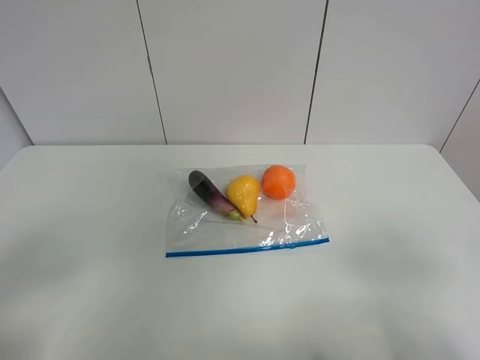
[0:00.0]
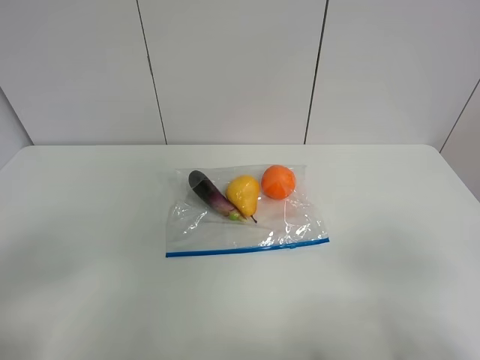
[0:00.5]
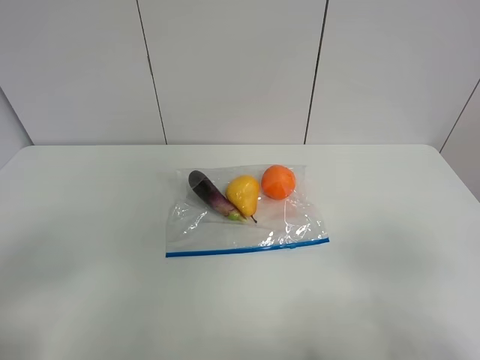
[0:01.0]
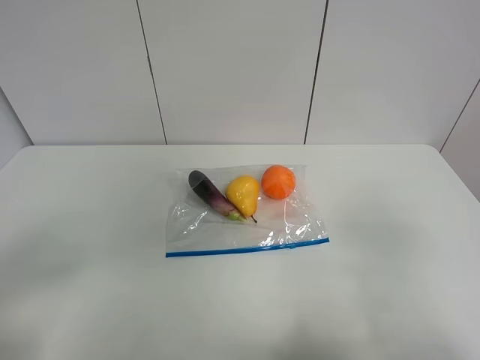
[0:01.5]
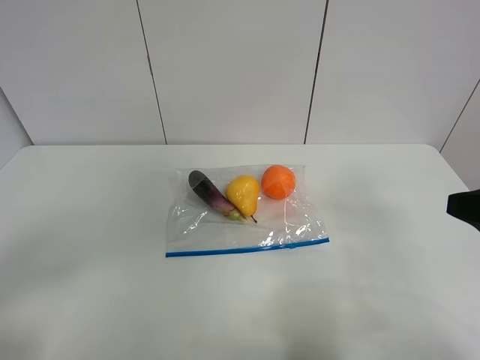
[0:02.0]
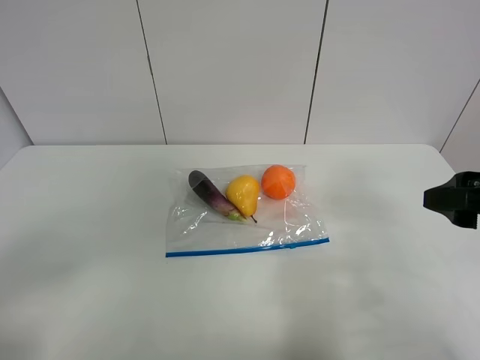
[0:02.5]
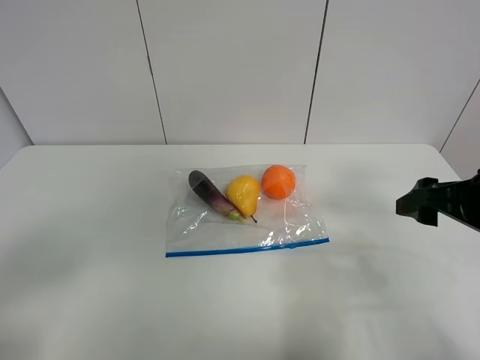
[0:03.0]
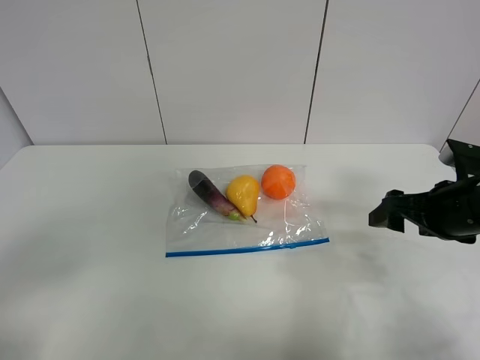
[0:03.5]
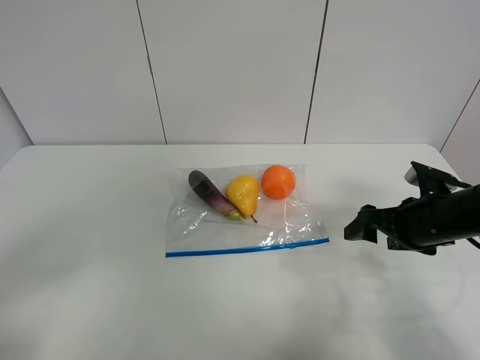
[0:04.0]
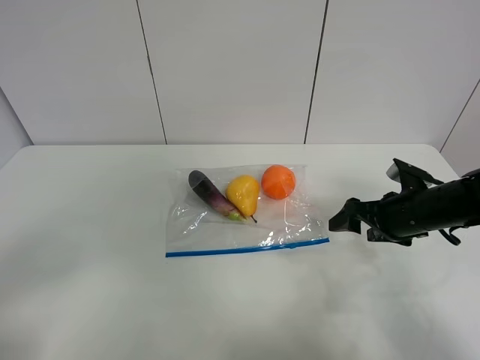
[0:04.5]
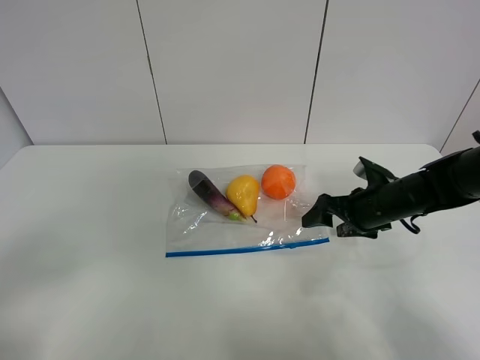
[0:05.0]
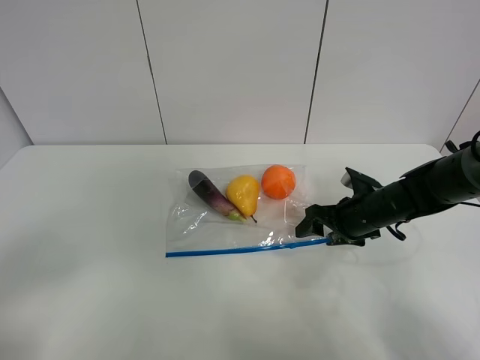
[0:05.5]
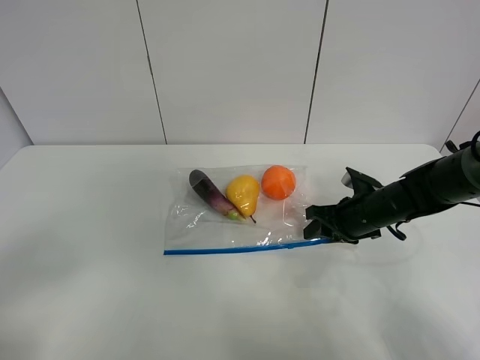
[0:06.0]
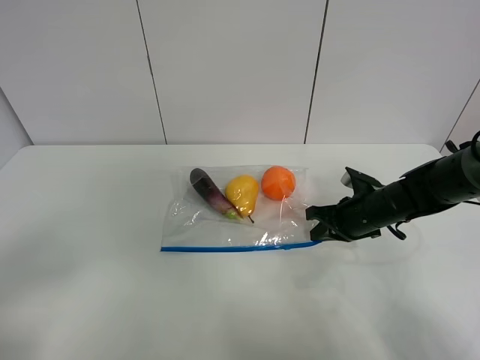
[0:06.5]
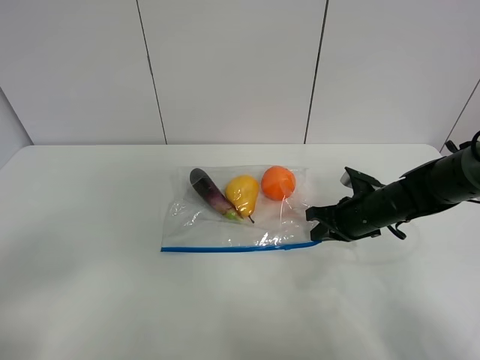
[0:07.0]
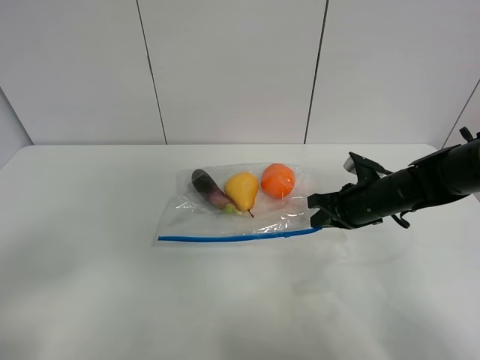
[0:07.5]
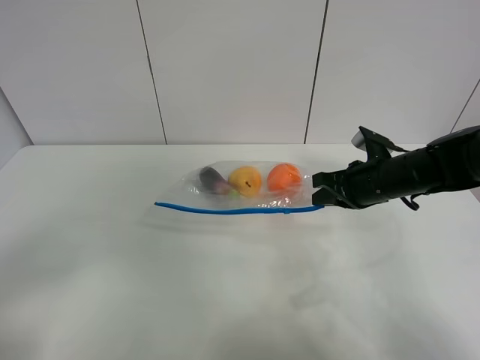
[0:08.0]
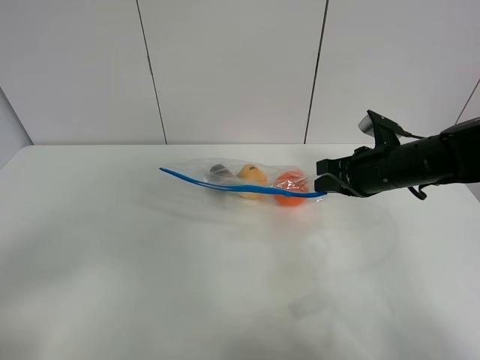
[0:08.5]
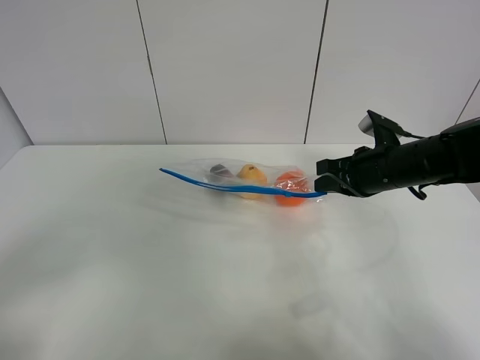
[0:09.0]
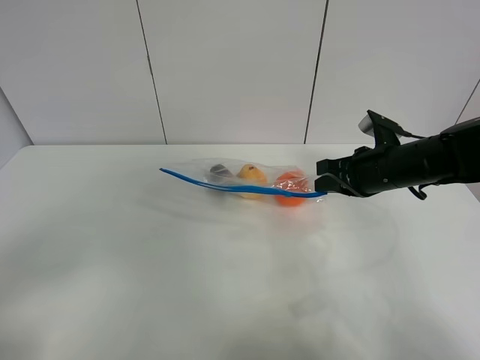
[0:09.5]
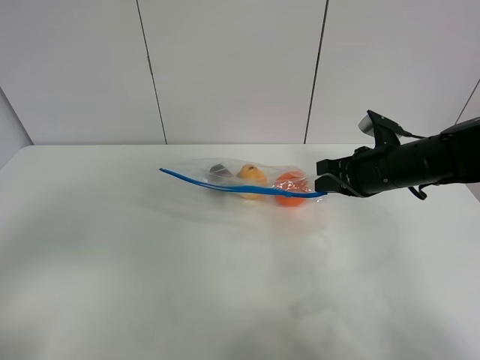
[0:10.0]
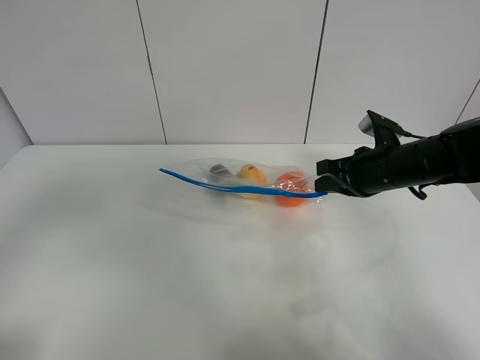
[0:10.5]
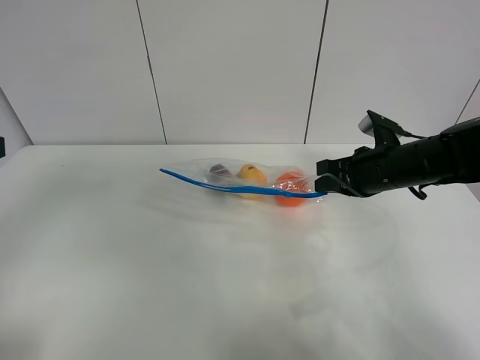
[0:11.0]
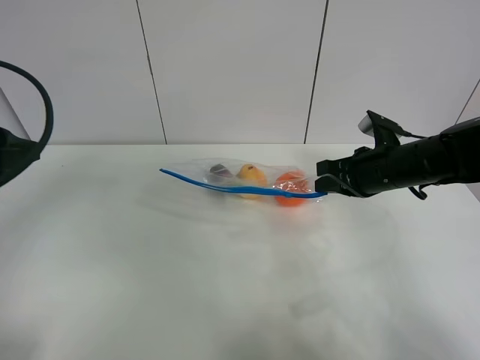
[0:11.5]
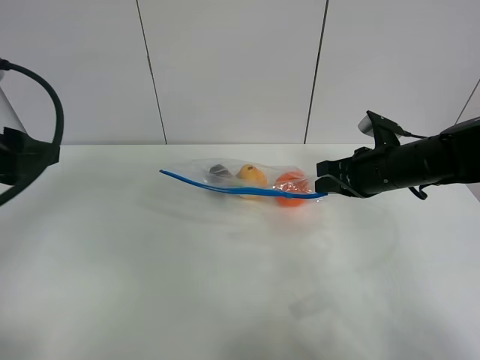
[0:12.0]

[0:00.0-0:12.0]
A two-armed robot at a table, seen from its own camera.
Step, 0.0 to 6.5 s: Grasp the fruit bag with right gripper.
Step, 7.0 to 8.5 s: Lift the fruit bag with your right gripper.
0.0 to 2.0 s: The right gripper heads forward, covering about 10 cm.
2.0 to 4.0 s: The right gripper goes some 20 cm downward and forward.
4.0 to 6.0 s: The right gripper goes approximately 10 cm forward, downward and to the left, and closes its fingers.
6.0 to 8.0 s: The right gripper travels upward by some 5 cm, and closes.
8.0 to 10.0 s: There are only small adjustments of the grippers.
10.0 to 12.0 s: The left gripper goes some 15 cm forward.

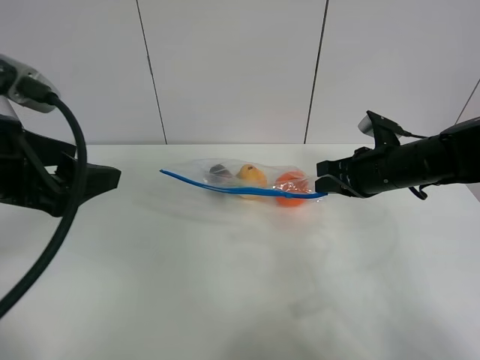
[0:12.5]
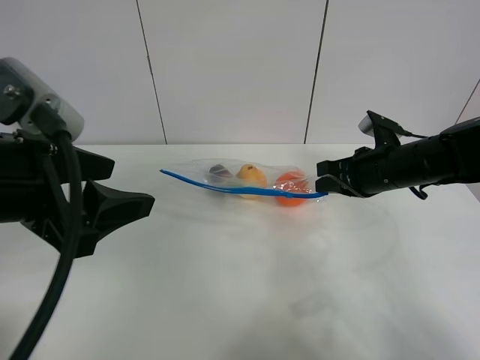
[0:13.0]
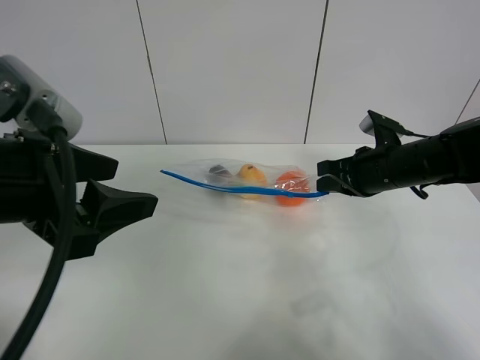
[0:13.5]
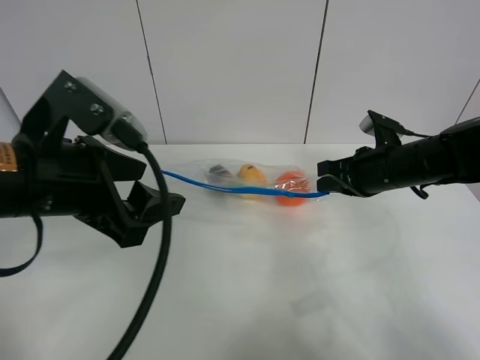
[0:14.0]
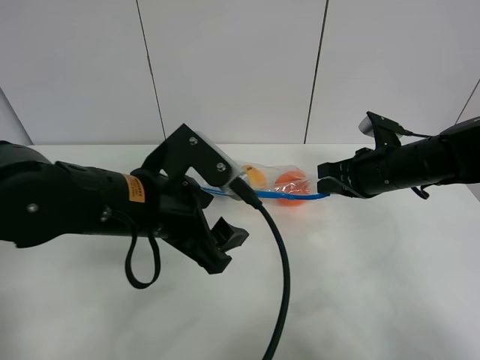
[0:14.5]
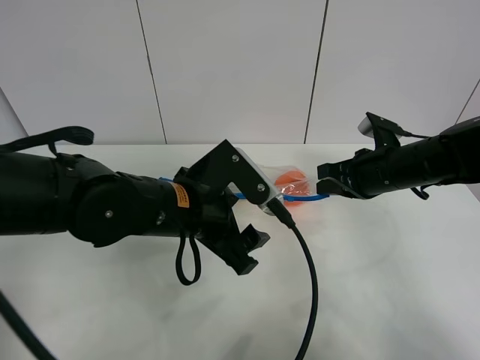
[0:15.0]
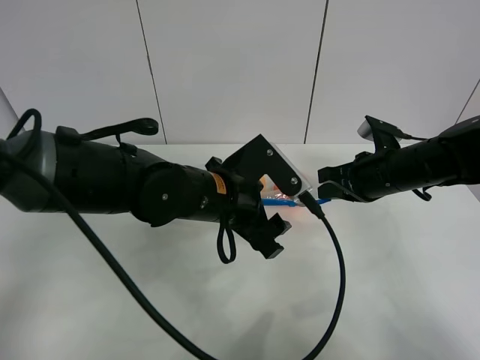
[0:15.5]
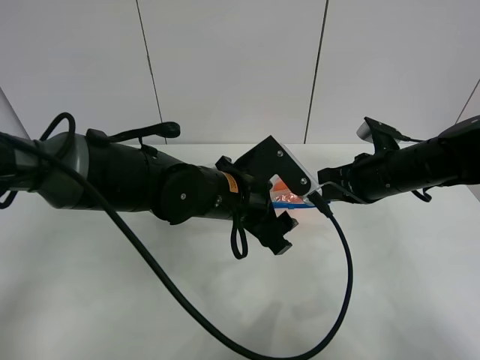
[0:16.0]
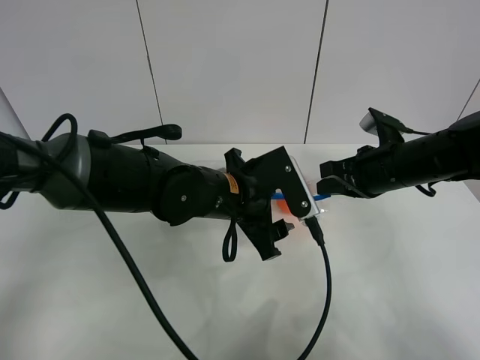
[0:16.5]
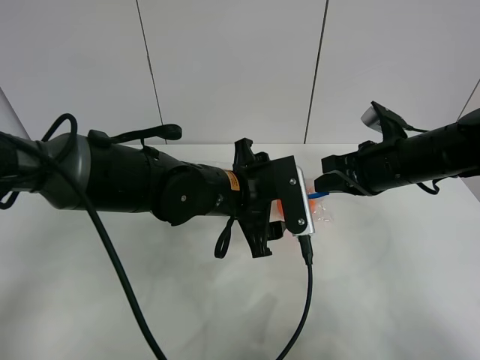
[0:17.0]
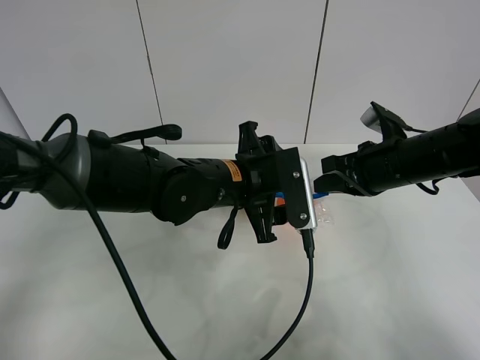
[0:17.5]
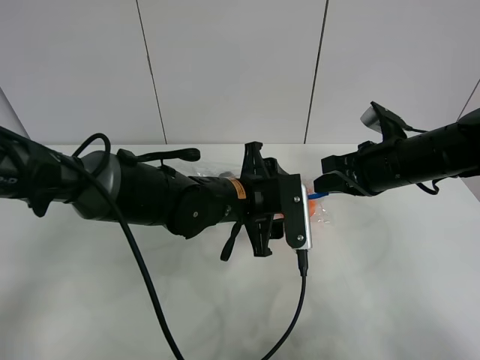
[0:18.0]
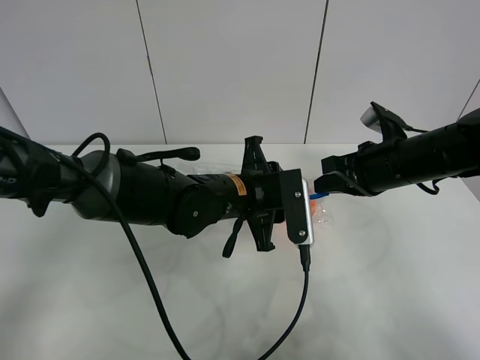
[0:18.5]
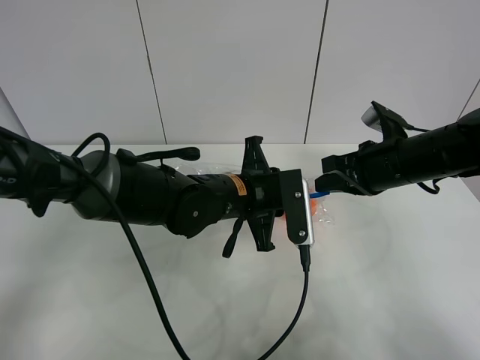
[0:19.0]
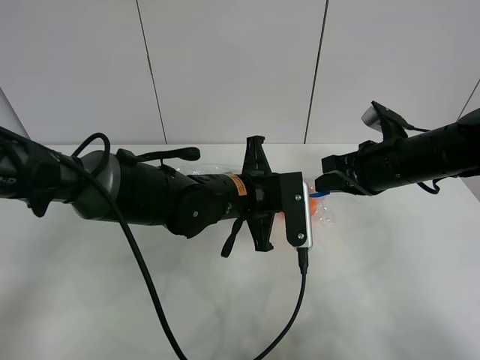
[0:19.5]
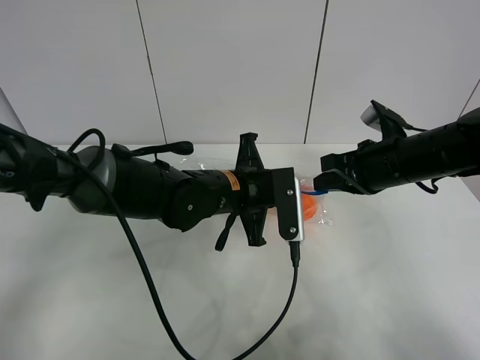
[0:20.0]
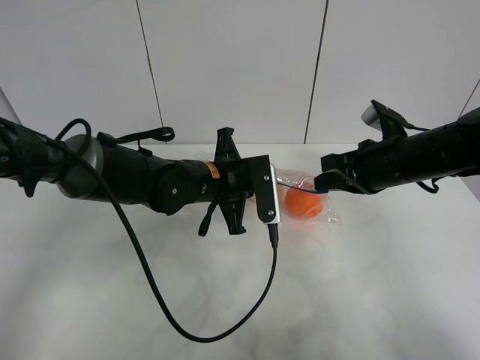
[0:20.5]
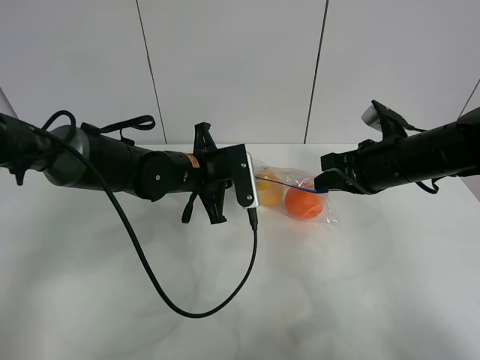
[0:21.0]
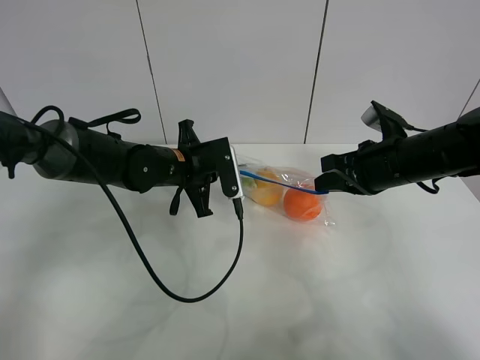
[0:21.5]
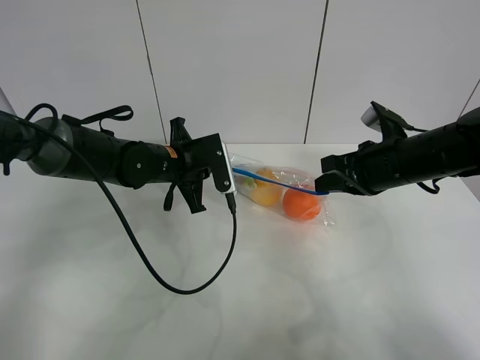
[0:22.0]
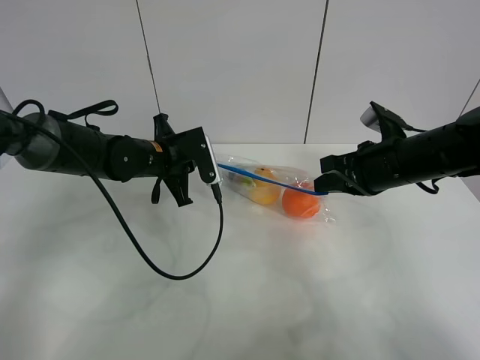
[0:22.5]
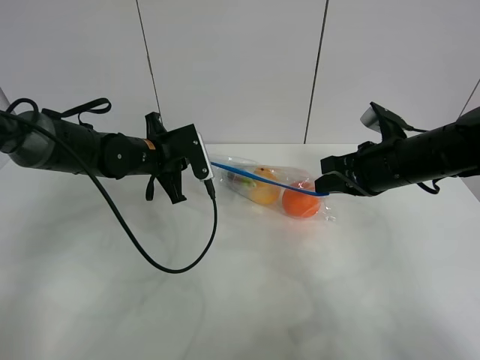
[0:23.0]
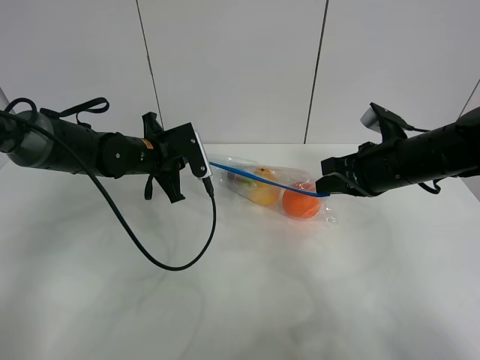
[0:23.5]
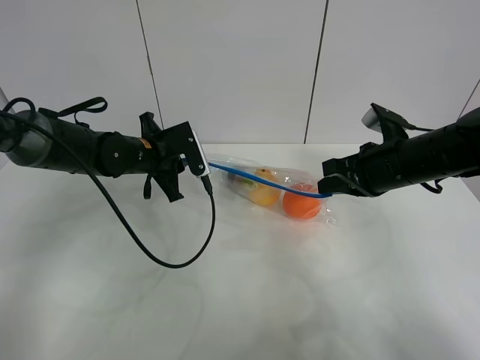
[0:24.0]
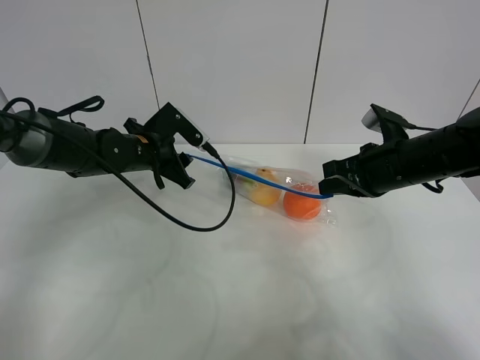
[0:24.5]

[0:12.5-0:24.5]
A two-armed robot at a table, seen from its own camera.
12.5 to 14.5 s: The left gripper shifts approximately 15 cm to the right and downward.
14.5 to 16.5 s: The left gripper heads to the right, forward and downward, covering about 10 cm.
16.5 to 18.5 s: The left gripper closes up.
18.5 to 20.5 s: The left gripper ends up roughly 5 cm from where it was, and closes.
20.5 to 22.5 s: The left gripper travels to the left and forward by roughly 10 cm.
22.5 to 24.5 s: The left gripper opens its fingers.

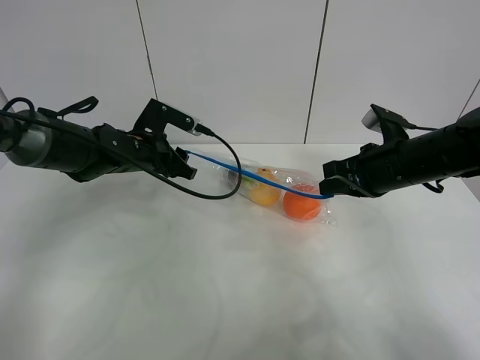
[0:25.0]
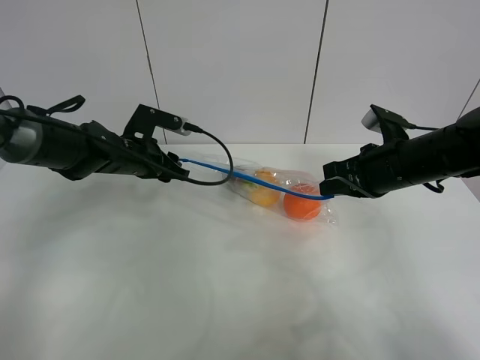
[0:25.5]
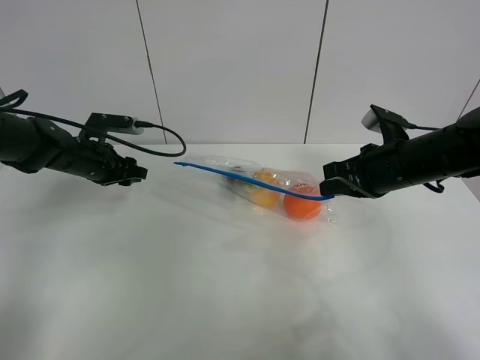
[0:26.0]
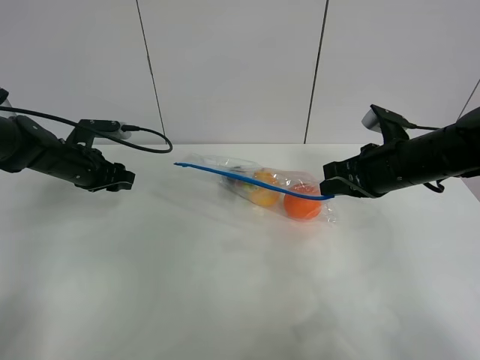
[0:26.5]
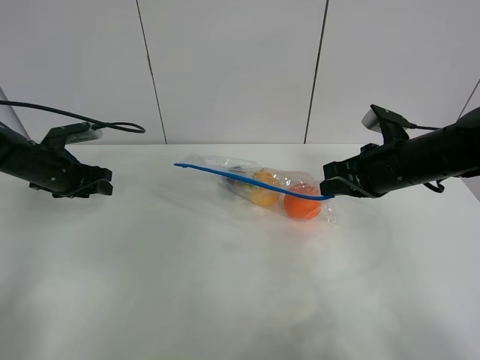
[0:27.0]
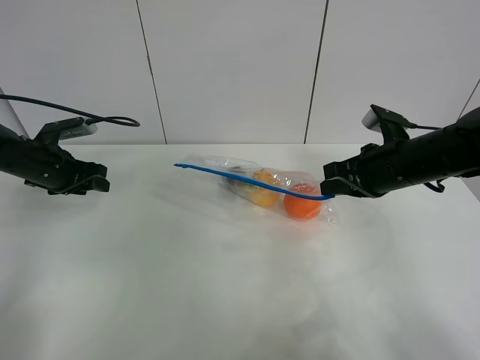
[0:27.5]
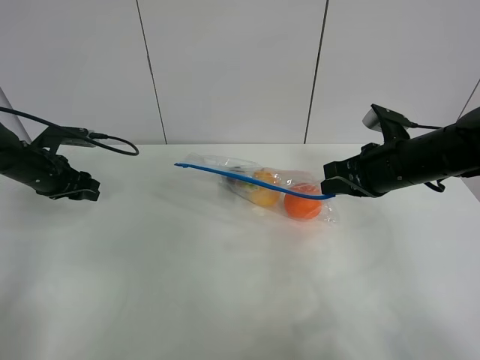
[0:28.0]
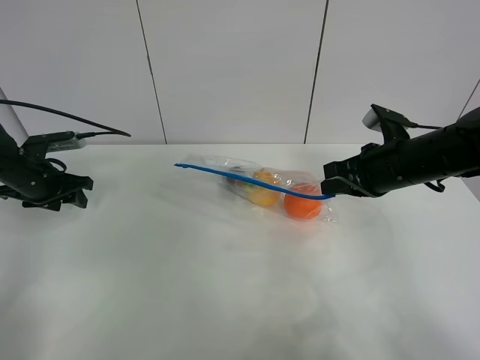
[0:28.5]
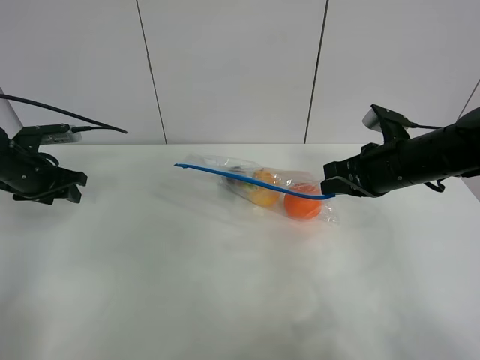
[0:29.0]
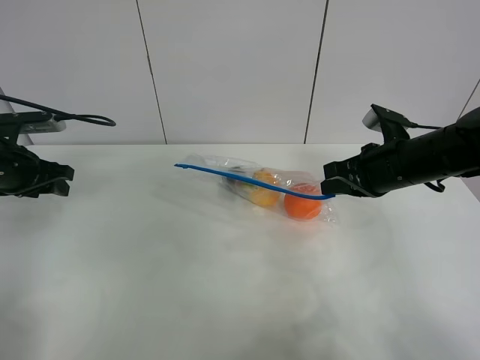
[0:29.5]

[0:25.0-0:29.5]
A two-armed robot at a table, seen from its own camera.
25.0 to 27.0 s: The left gripper travels to the left by roughly 15 cm.
27.0 to 29.5 s: The left gripper moves upward and backward, some 10 cm.
